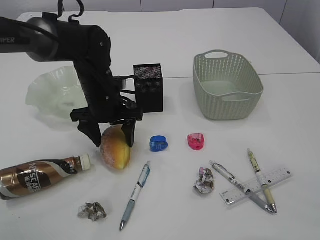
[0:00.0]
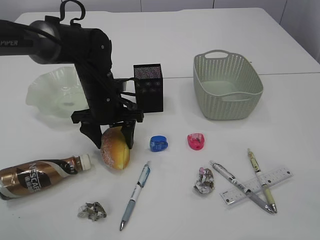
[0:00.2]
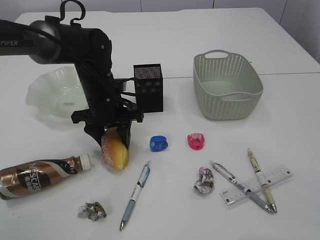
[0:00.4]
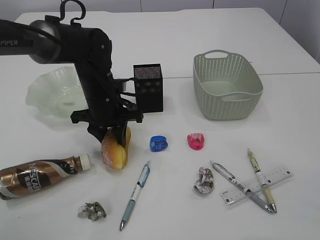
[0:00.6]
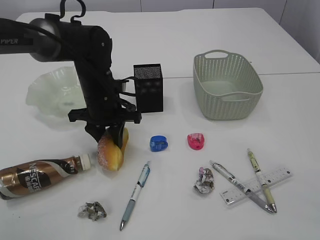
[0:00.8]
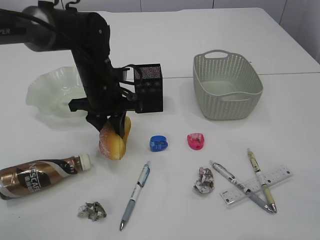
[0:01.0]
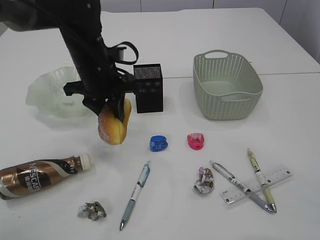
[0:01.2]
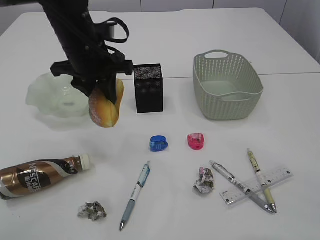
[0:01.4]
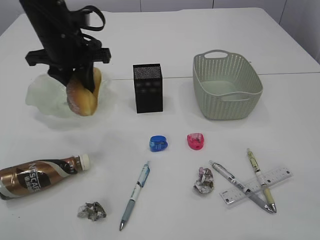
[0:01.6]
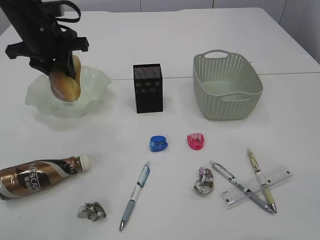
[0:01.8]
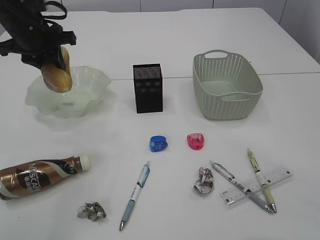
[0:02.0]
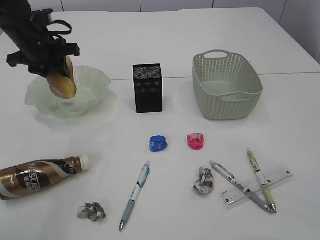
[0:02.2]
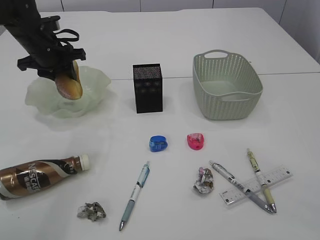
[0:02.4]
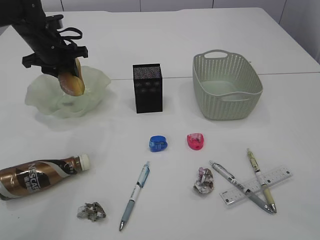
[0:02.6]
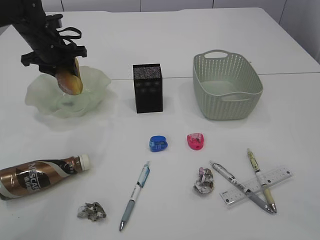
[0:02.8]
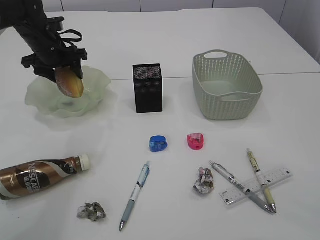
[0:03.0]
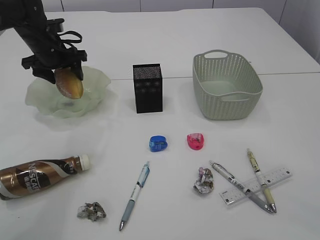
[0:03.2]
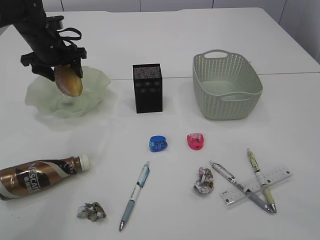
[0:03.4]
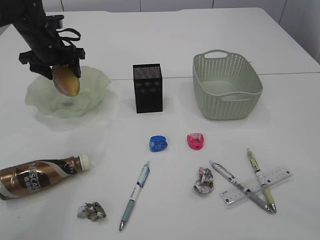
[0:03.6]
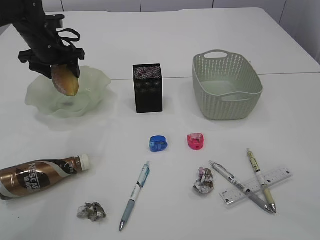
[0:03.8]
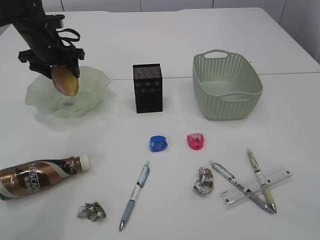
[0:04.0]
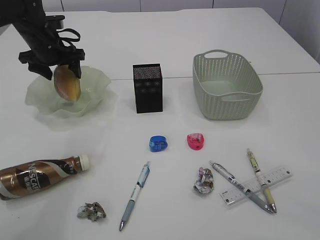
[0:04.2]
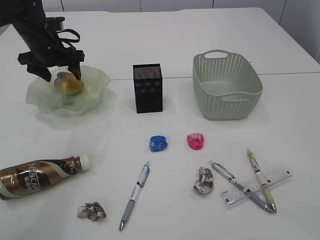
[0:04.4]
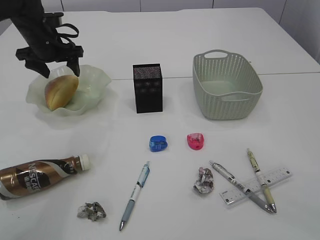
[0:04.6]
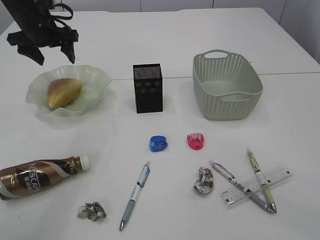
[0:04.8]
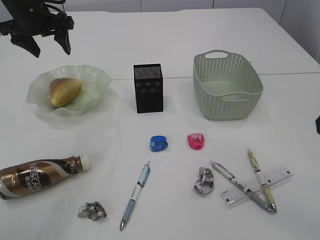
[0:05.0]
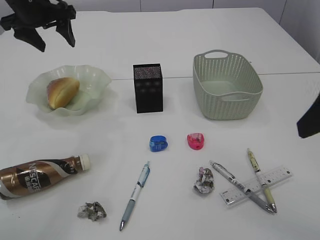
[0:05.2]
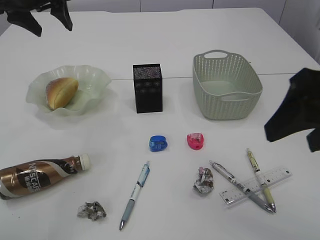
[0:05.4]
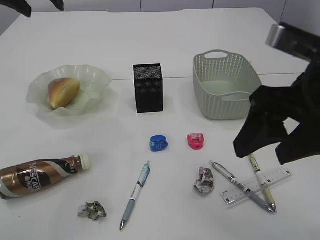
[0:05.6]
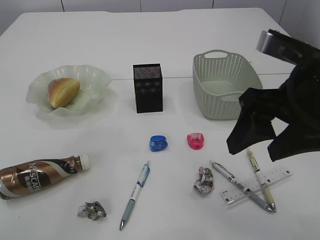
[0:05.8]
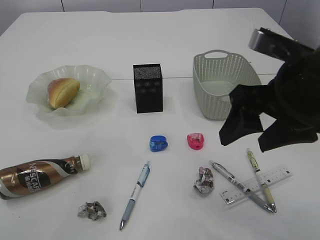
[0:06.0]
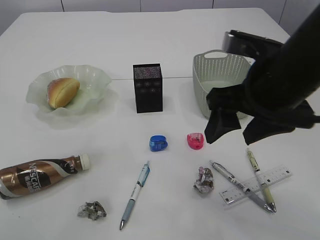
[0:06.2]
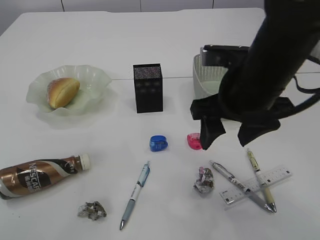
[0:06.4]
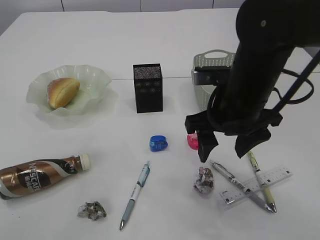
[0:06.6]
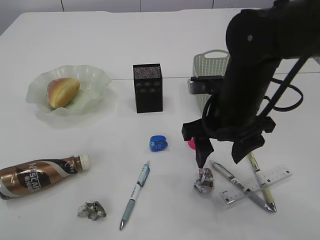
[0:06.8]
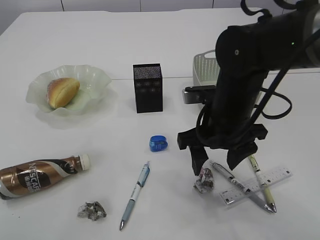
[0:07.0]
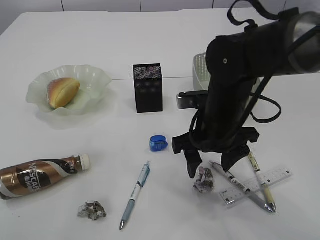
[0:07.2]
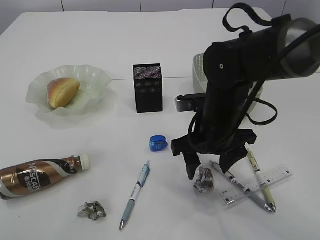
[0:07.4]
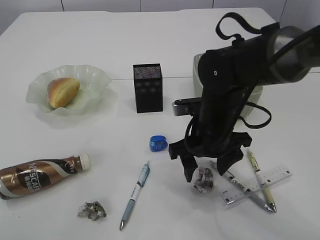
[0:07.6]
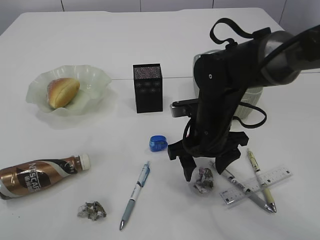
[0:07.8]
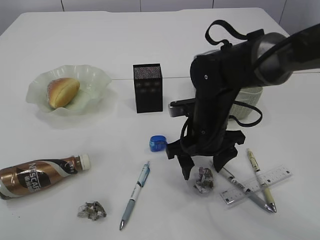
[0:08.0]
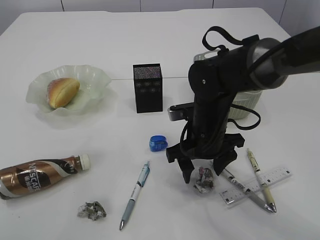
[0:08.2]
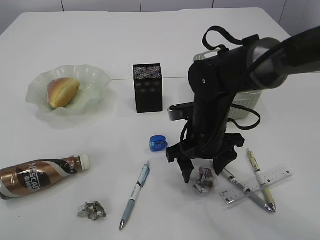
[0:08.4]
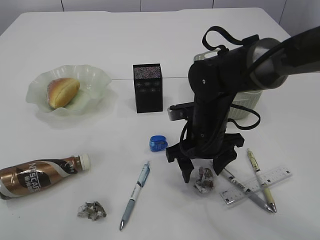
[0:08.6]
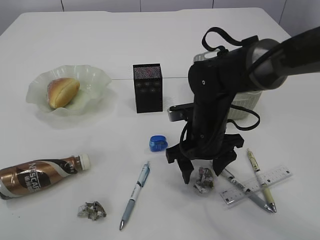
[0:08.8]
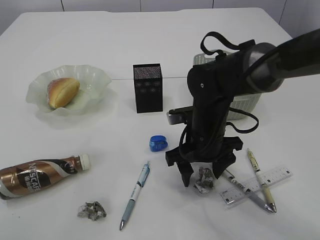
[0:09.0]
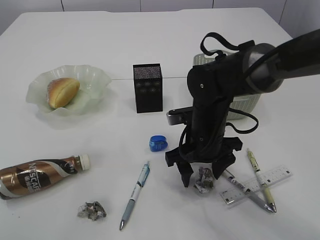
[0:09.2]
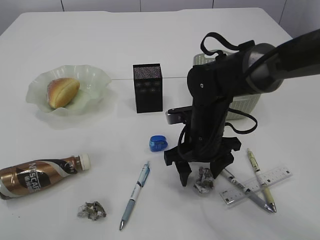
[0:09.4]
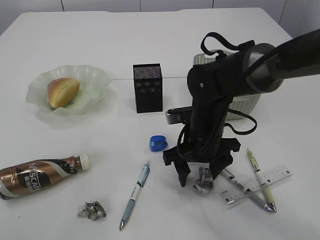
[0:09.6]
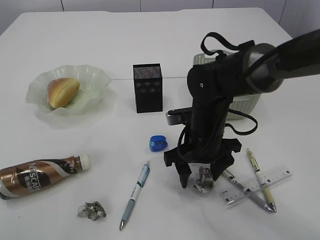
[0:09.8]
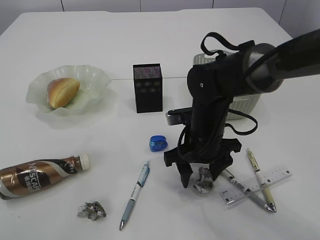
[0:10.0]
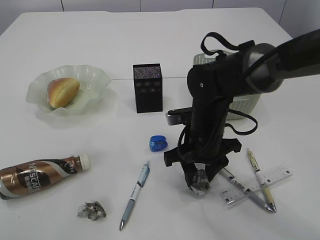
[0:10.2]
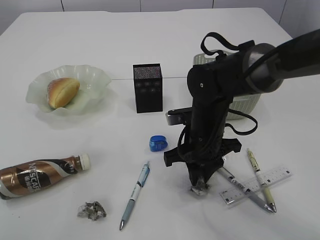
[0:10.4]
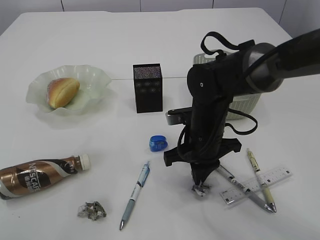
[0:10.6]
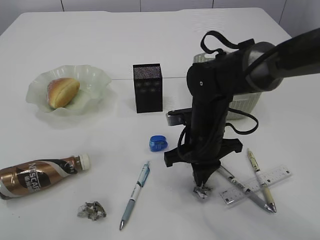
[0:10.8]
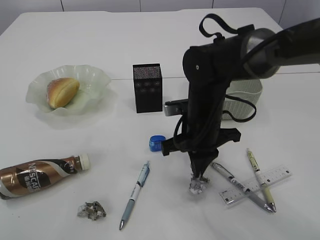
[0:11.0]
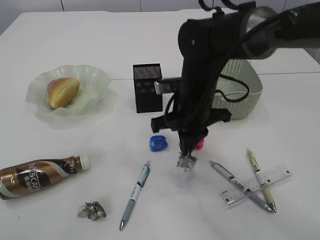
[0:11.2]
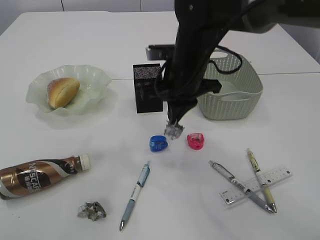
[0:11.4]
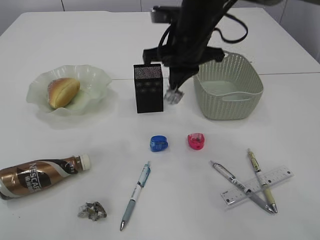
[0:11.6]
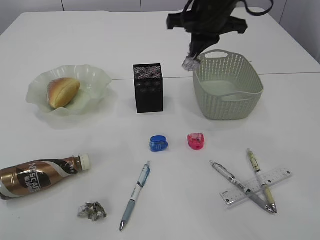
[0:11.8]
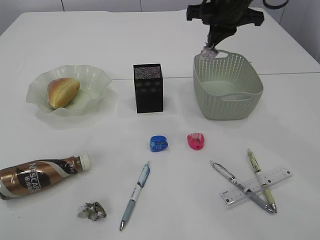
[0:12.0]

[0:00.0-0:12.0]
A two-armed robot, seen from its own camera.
Step, 1.4 to 4.8 s: place the bread in the plate.
Step, 5.0 to 11.2 s: Pick up the waste paper.
0.0 to 1.6 s: The left gripper goes approximately 15 cm upward and to the left, and closes its fingers.
1.6 to 3.0 s: The left gripper is displaced forward, to the left and downward by some 15 cm, and opens up.
3.0 to 4.4 s: The grippers make only small movements.
4.4 to 6.0 s: The right gripper moves to the left, roughly 10 cm. Meanwhile the left gripper moves upward and backward, roughly 30 cm.
6.0 to 7.6 s: The right gripper shifts some 15 cm downward, forward and to the left.
7.6 to 9.0 s: There are only small adjustments of the grippers.
9.0 to 10.4 s: The right gripper closes.
10.4 to 12.0 s: The right gripper is displaced upward and forward by roughly 20 cm, and closes up.

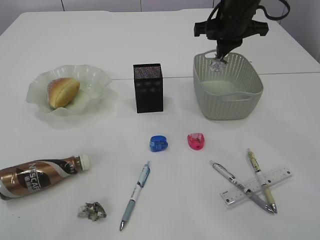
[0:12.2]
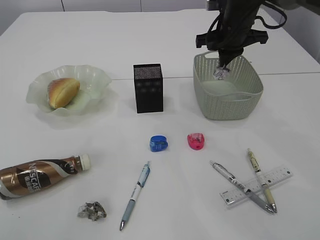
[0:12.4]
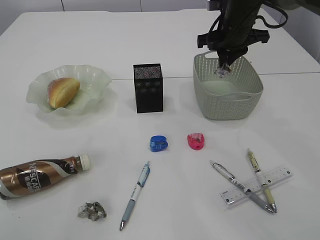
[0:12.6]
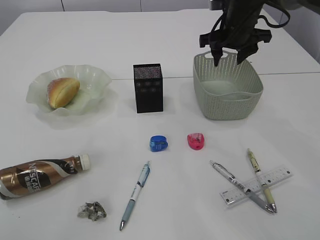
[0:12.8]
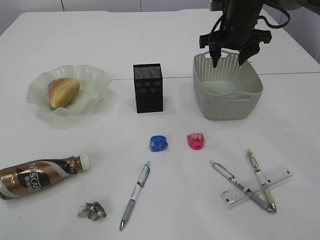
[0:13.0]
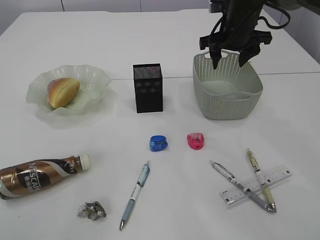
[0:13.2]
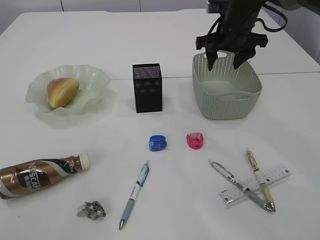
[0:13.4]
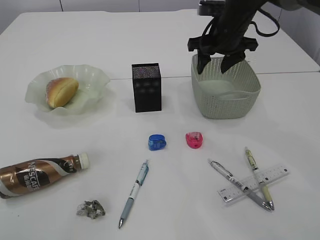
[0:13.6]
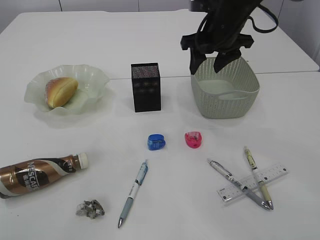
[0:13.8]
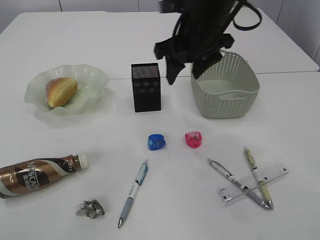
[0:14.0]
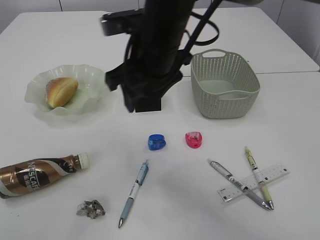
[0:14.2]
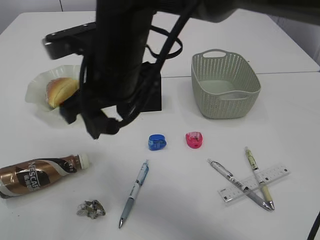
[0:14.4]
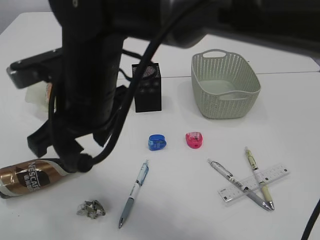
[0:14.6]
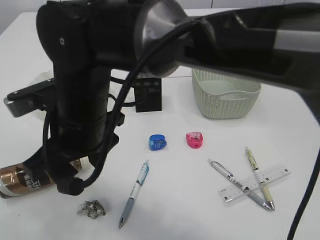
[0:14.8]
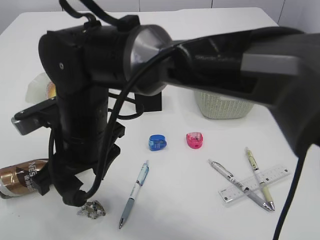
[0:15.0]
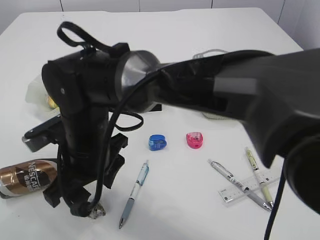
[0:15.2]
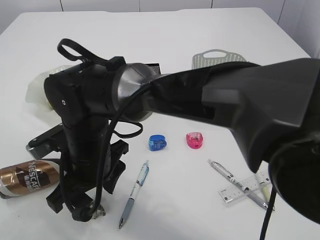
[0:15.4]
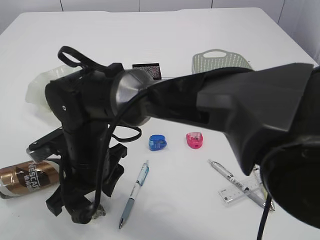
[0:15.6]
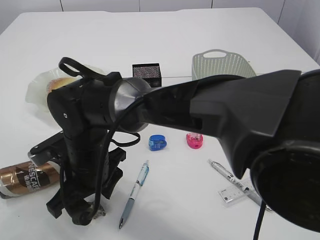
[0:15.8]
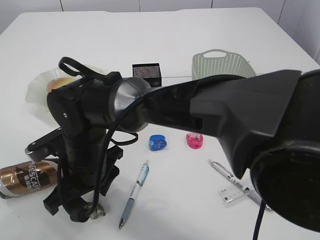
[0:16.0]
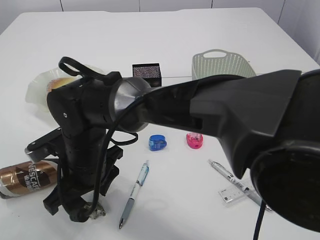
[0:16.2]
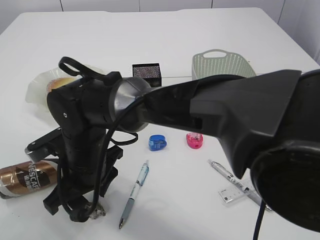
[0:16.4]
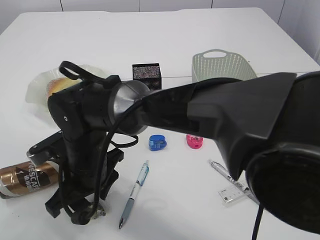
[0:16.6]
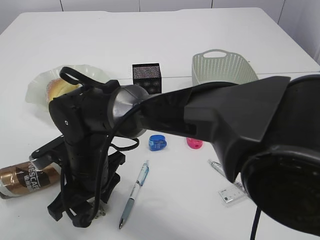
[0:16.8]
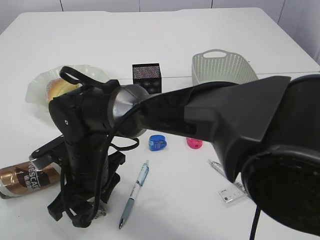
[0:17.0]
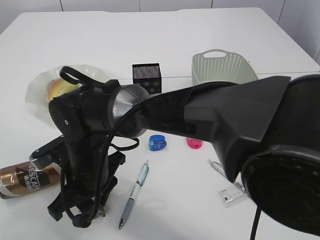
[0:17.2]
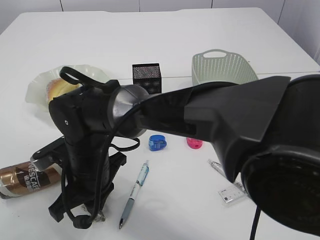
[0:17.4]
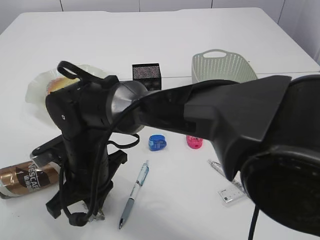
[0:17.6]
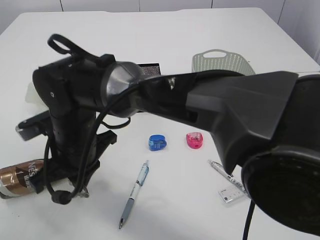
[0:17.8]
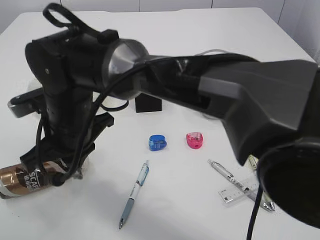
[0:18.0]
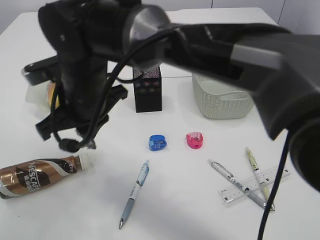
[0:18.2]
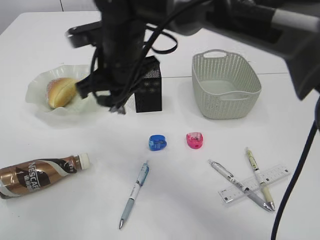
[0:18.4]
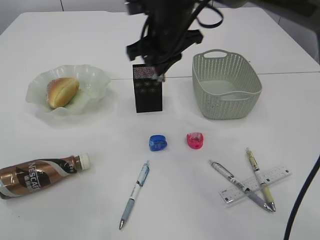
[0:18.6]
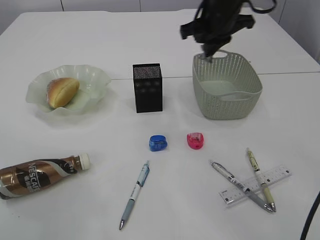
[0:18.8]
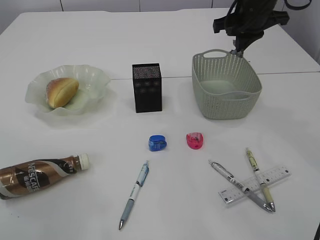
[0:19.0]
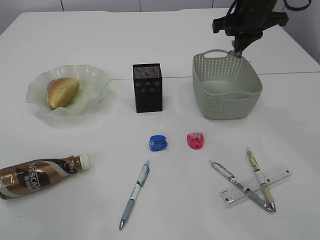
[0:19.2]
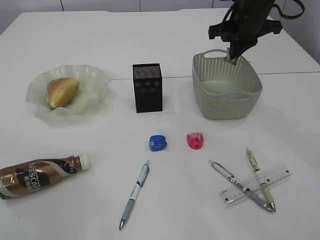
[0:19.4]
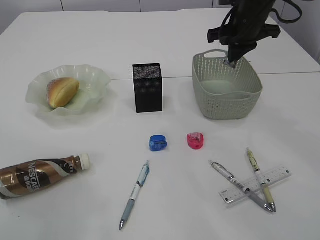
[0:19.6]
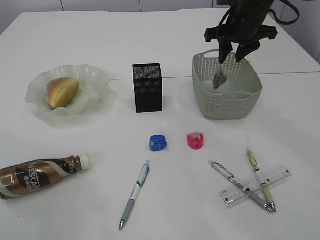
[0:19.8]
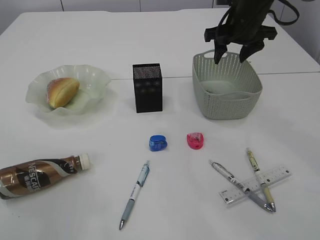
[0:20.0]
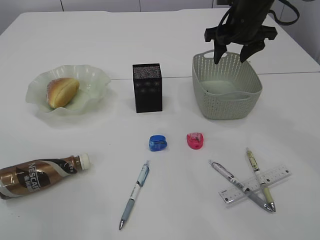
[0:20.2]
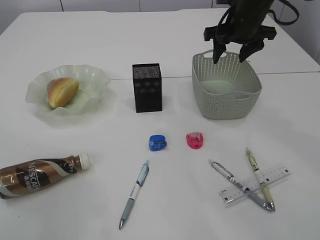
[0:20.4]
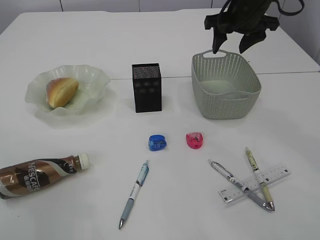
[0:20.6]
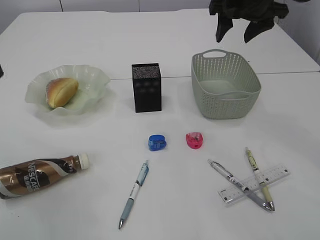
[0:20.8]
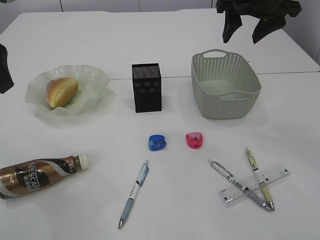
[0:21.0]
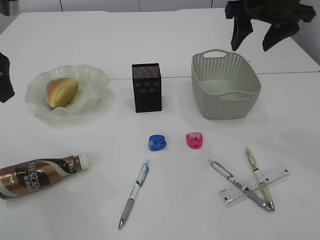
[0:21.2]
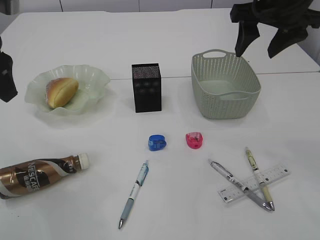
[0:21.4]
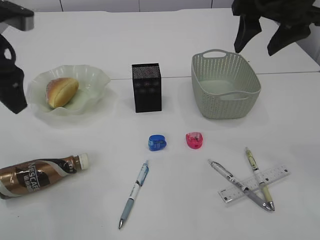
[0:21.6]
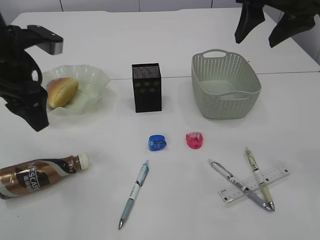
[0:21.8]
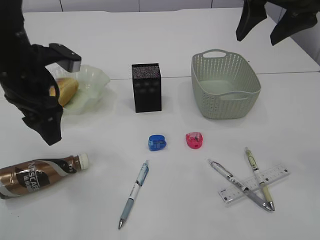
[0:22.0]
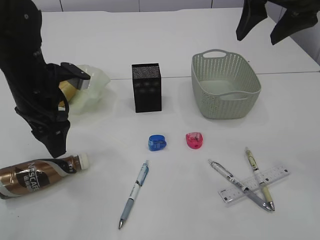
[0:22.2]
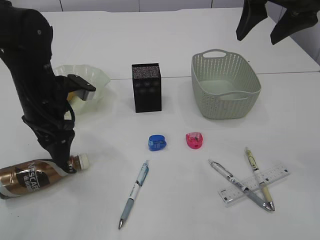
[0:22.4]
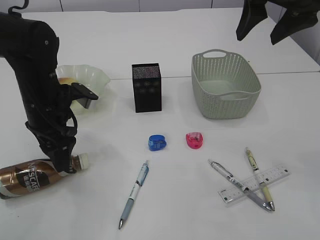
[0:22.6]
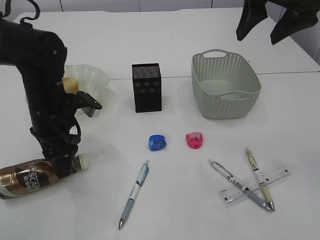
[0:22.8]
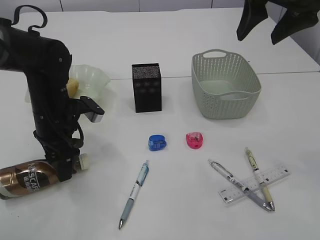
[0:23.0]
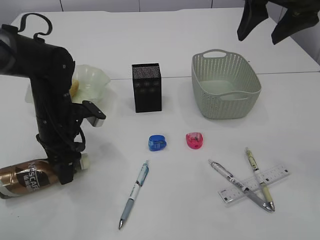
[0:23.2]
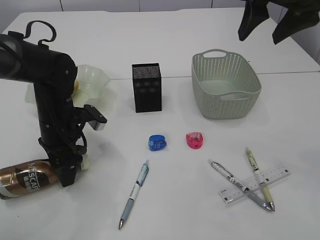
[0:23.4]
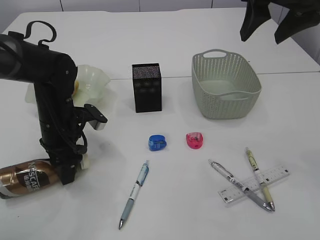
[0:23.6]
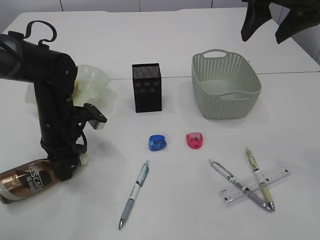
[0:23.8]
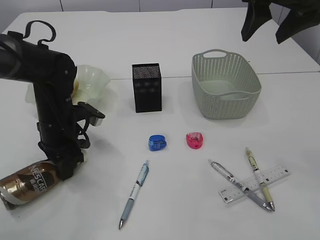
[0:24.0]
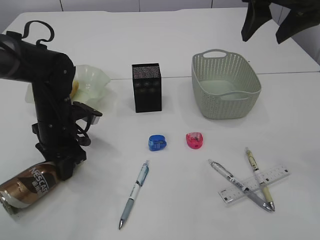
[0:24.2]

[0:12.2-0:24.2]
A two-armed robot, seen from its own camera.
Step, 12.2 to 13.2 s: Place the waste paper in the basket.
Step, 13.4 to 17.8 s: Pick up the waste paper.
Step, 18.0 to 19.8 s: Place the waste paper in the basket.
12.2 to 13.8 s: The right gripper opens.
13.8 to 15.2 s: The right gripper goes approximately 30 cm to the left and backward; the left gripper goes roughly 5 cm backward.
16.6 to 18.2 s: The right gripper is displaced upward by roughly 10 cm, and closes its fingers.
18.2 to 19.8 s: The right gripper travels to the right and forward by approximately 35 cm, and opens up.
19.8 to 21.2 s: The left gripper is displaced downward by approximately 15 cm; the right gripper is displaced backward and upward by roughly 10 cm, and opens.
21.2 to 22.6 s: The right gripper moves backward, roughly 5 cm. The left gripper is displaced downward by roughly 15 cm.
22.6 to 24.2 s: The left gripper goes about 5 cm downward, and closes.
